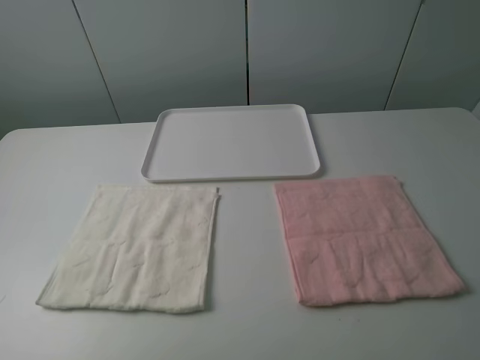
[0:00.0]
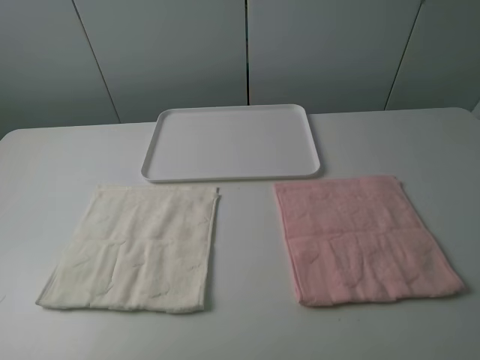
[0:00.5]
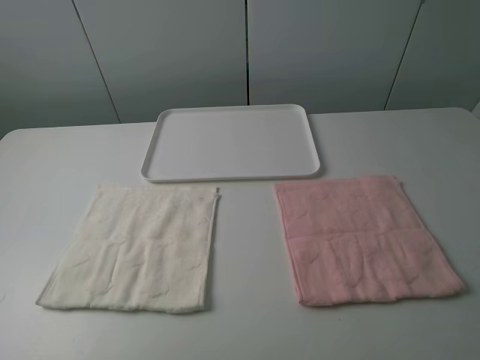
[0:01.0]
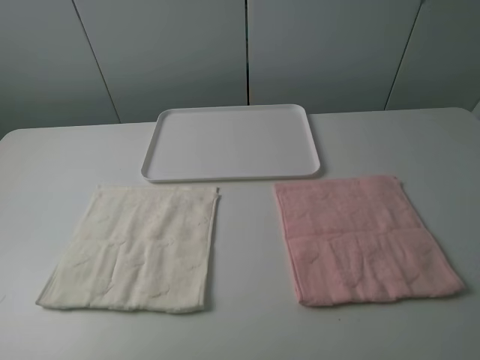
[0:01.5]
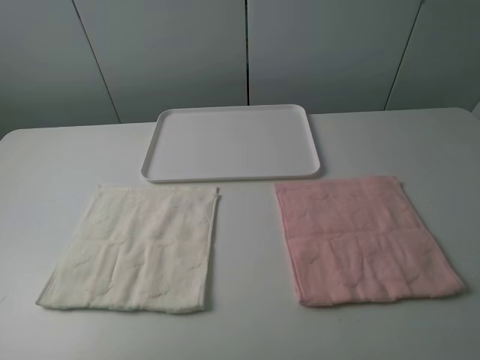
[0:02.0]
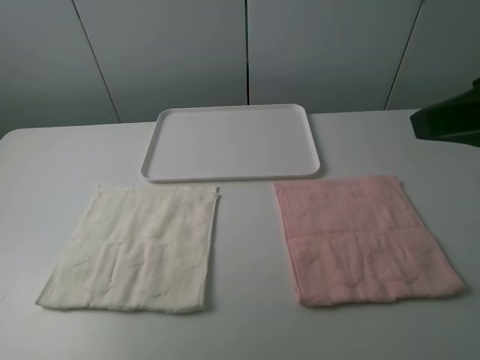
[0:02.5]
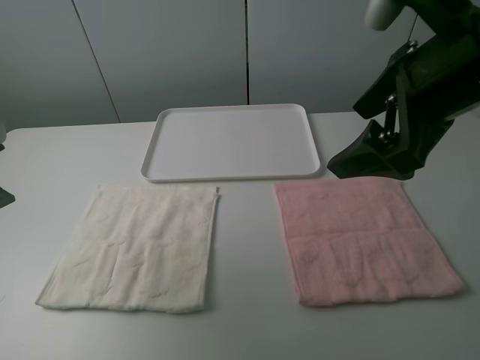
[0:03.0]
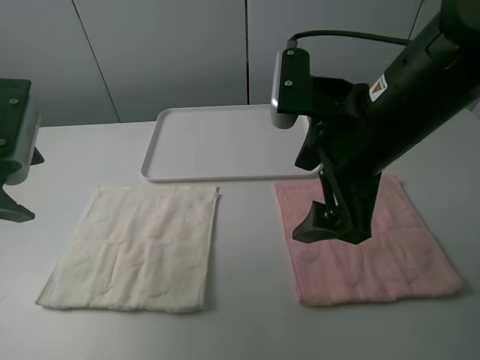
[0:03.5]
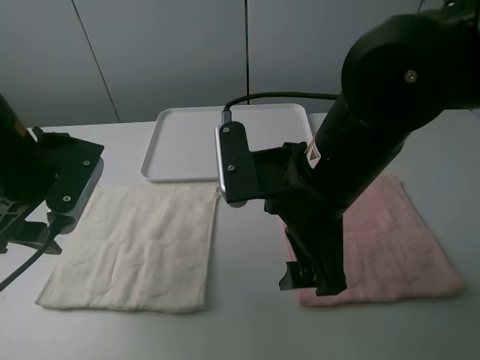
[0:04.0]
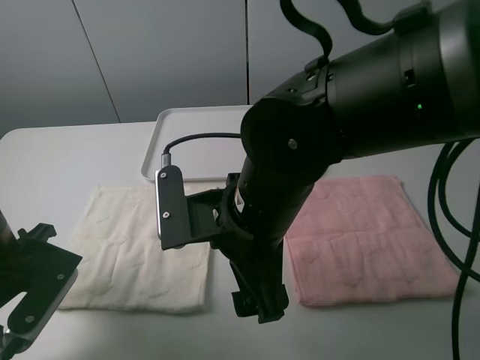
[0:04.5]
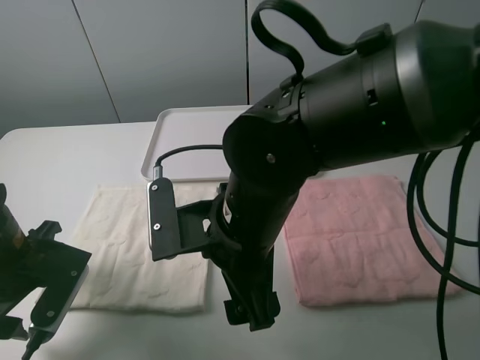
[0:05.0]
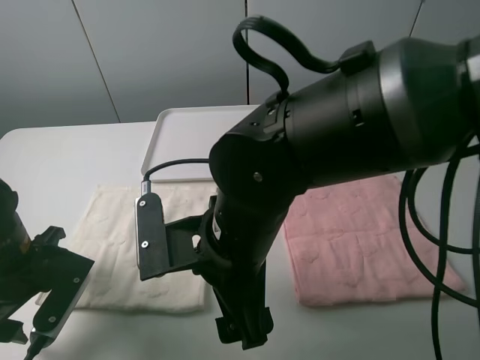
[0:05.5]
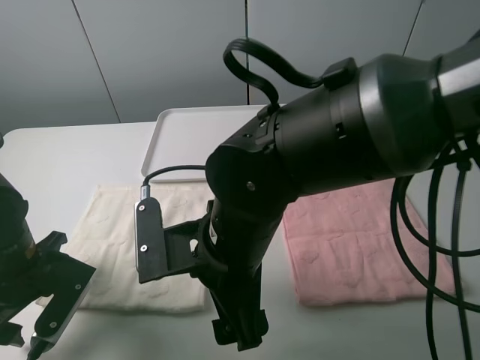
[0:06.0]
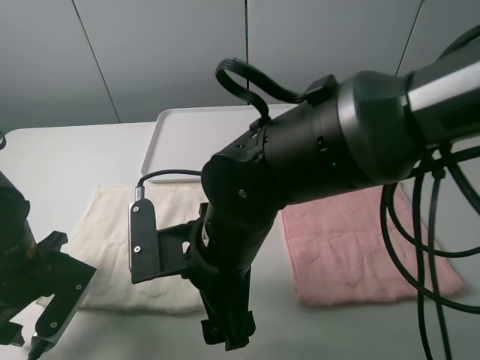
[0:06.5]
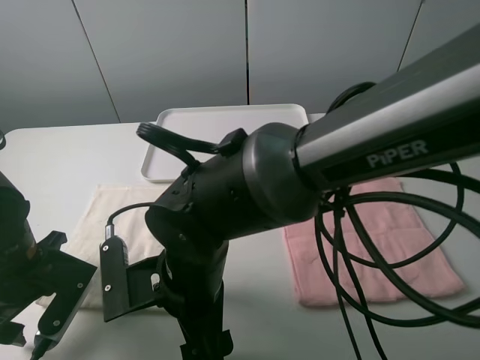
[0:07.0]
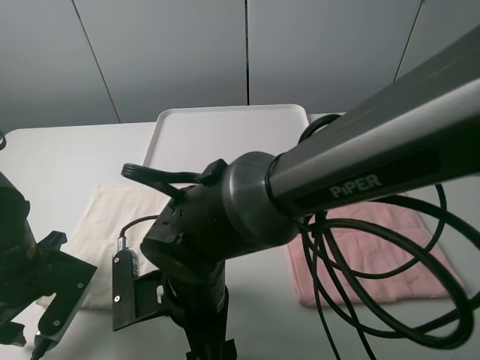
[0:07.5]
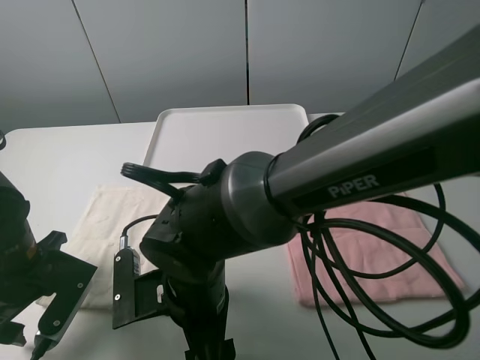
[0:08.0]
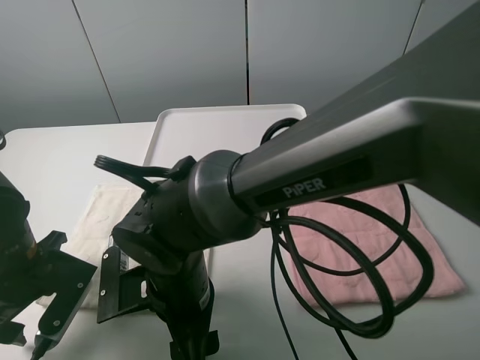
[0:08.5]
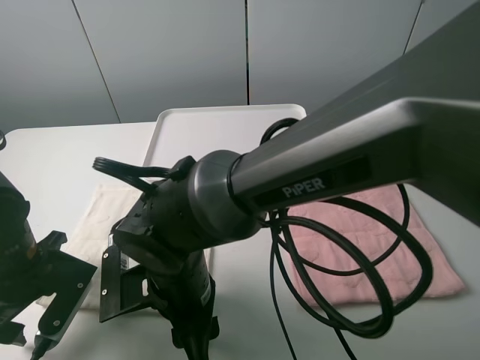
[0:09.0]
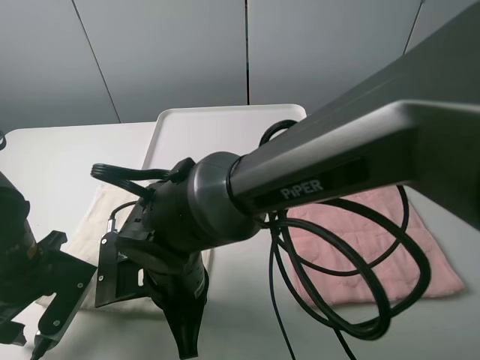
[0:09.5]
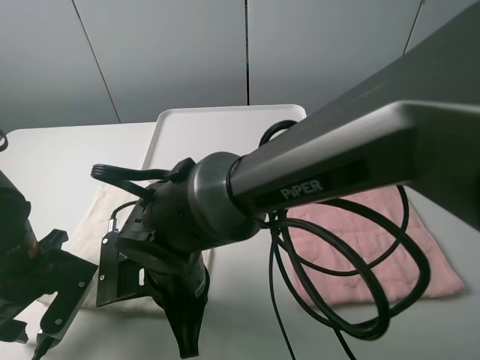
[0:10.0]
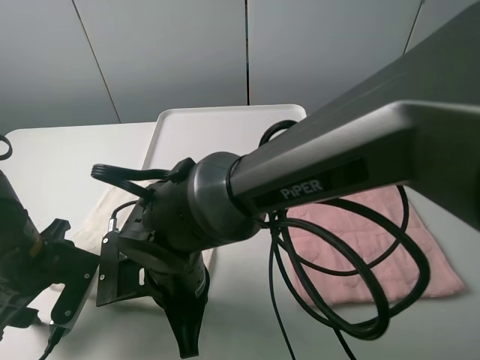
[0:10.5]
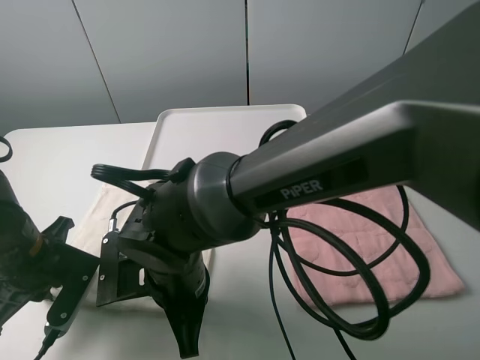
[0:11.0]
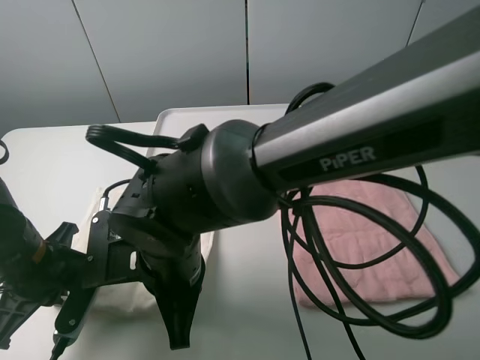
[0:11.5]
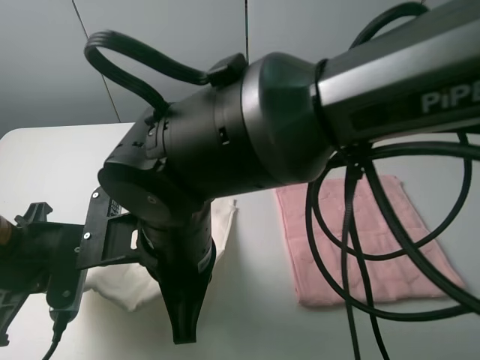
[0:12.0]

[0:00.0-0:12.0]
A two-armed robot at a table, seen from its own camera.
Task of the whole recording: fold one of the towels by two grippers and place it on the tray,then fold another towel by two grippers and place it on the folded towel.
Step, 0:00.0 to 0:11.0: Grasp the white towel with the left gripper.
0:02.0 to 0:04.0: The left gripper moves forward, approximately 20 cm. The right gripper travels to the left, forward and downward by approximately 30 cm.
0:04.0 to 0:06.0: The left gripper goes roughly 15 cm downward and backward. The right gripper is displaced to the left and downward by some 10 cm.
0:06.0 to 0:08.0: The right gripper is displaced downward by some 5 cm.
0:08.0 to 0:10.0: The right gripper closes its fingers.
0:10.0 to 0:12.0: The grippers both shift upward by some 5 cm. The left gripper closes up.

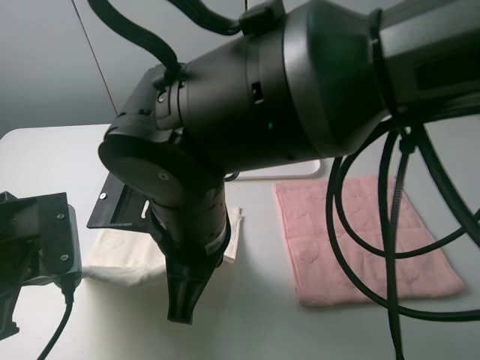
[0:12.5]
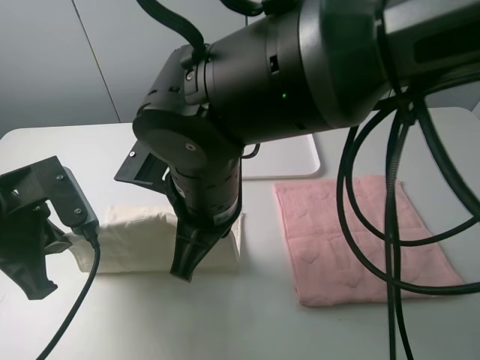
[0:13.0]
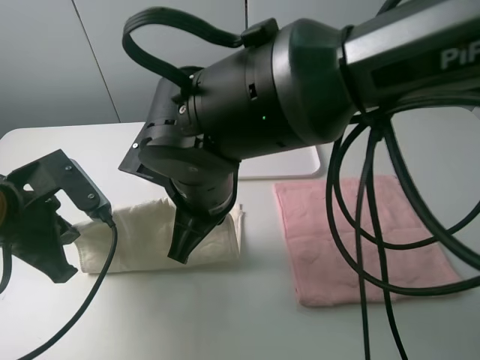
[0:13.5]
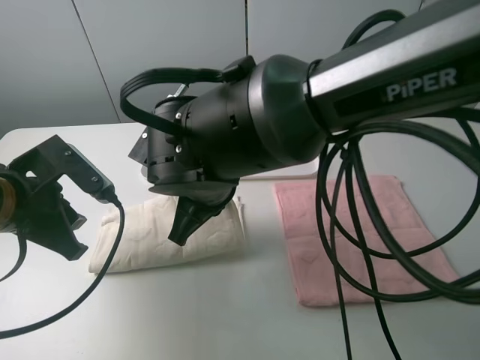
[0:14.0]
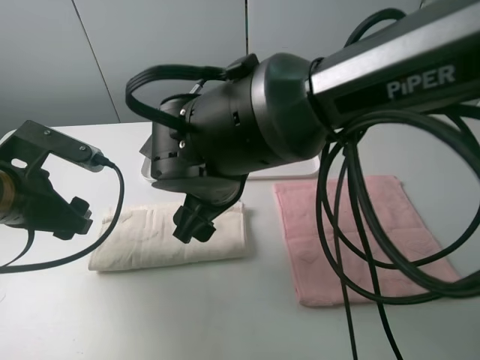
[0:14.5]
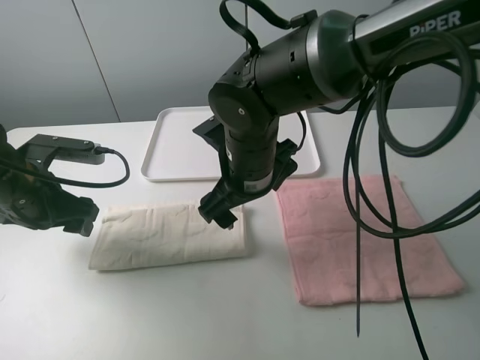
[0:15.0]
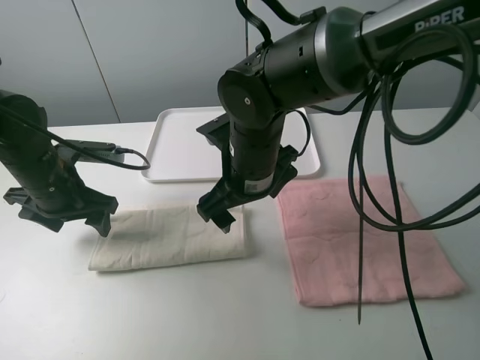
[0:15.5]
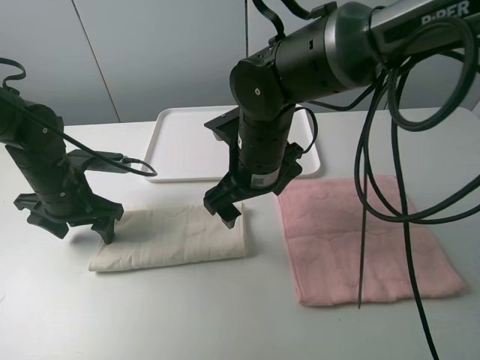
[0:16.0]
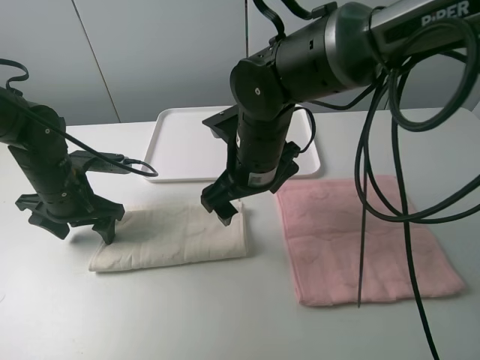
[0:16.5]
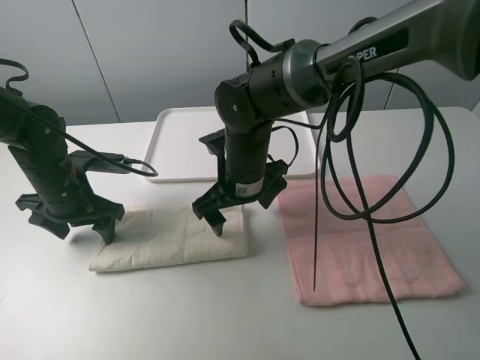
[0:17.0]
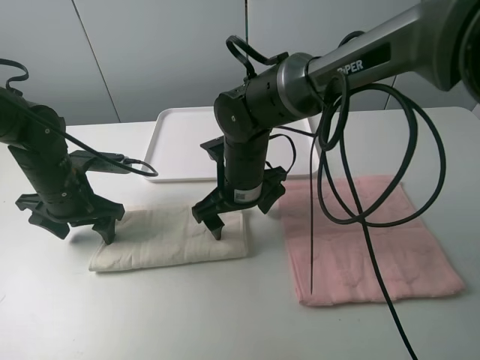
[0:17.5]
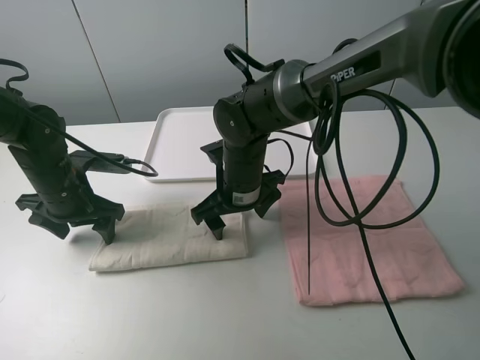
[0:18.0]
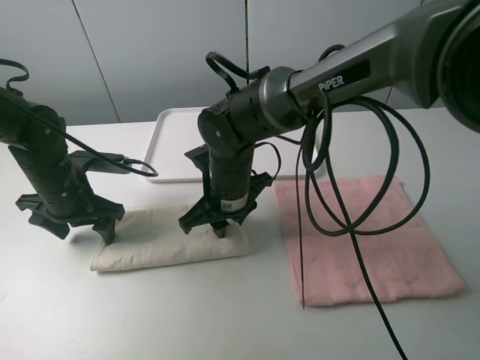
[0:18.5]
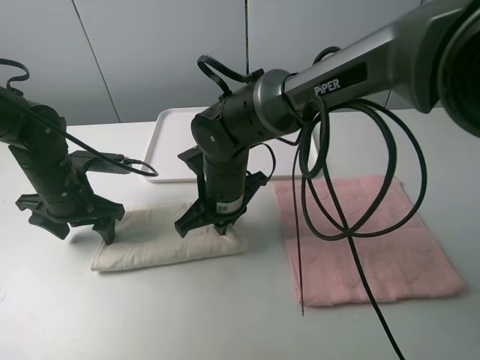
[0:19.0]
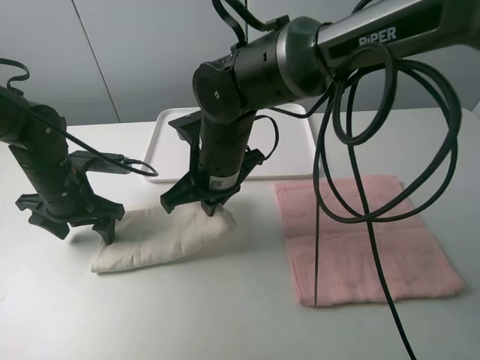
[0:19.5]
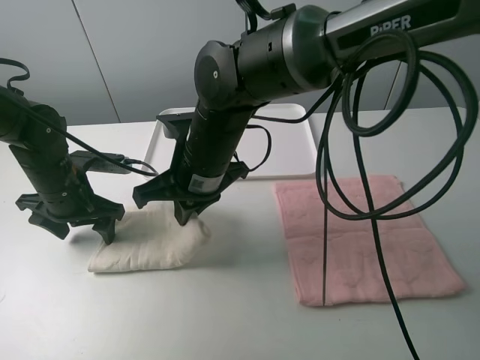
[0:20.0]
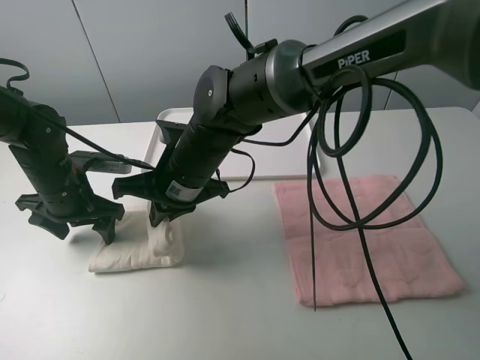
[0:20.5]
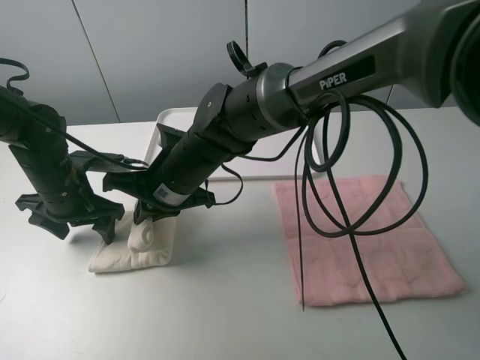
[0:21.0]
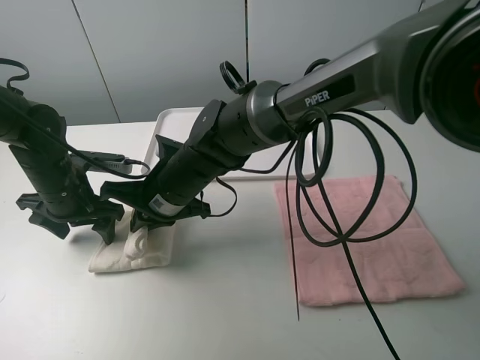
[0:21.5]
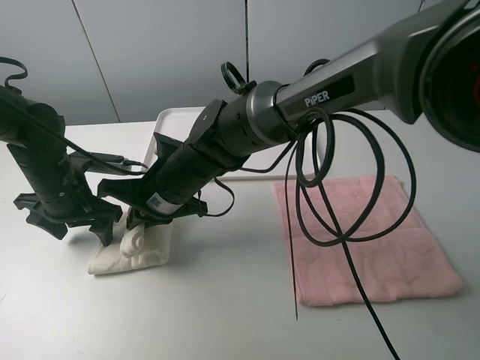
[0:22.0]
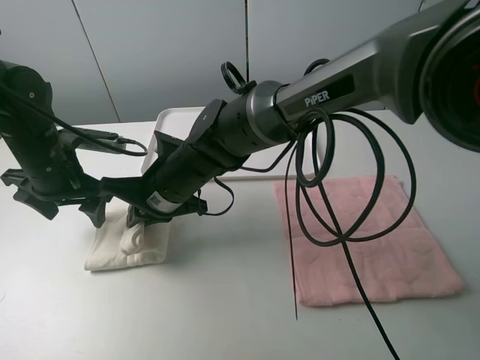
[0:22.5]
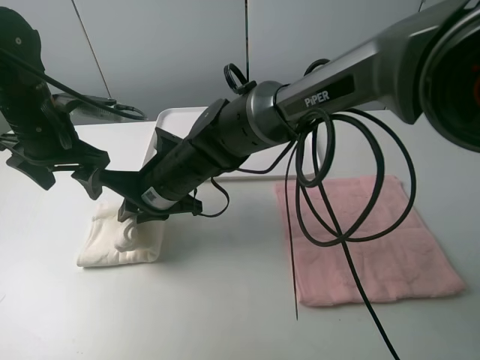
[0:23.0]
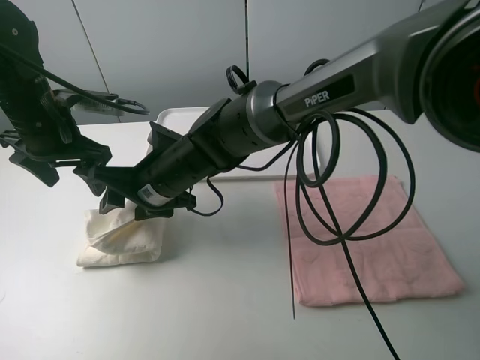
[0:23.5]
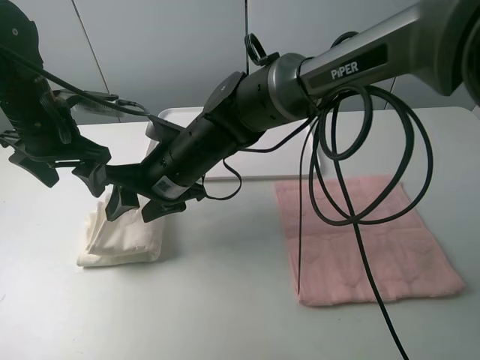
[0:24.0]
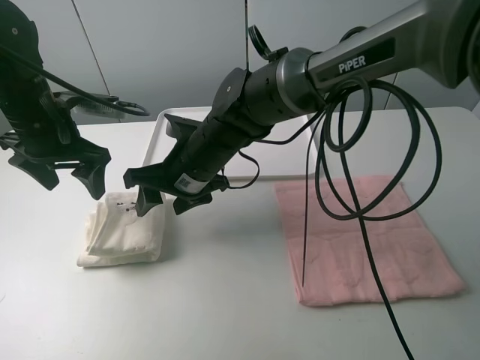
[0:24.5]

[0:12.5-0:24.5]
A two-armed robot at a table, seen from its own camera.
Task of the whole recording: fold one of the towels by two grippers and place it on the tray,then fold another towel by two grippers and place it on the folded towel.
Step, 0:14.5 to 0:16.0: Press the white towel with the left gripper.
Step, 0:16.5 to 0:18.5: Grasp the white towel with the right gripper.
Step, 0:19.0 to 0:24.0: Fold the white towel from right to left with right gripper.
0:12.5 to 0:14.5: Both grippers move forward, some 5 cm. The right gripper opens up; the left gripper opens up.
0:14.5 to 0:16.5: The left gripper travels forward and downward by roughly 10 cm; the right gripper moves forward, approximately 5 cm.
0:16.5 to 0:18.5: The right gripper goes roughly 5 cm downward, and closes its fingers.
0:18.5 to 0:20.5: The right gripper moves approximately 5 cm.
0:20.5 to 0:22.5: The left gripper heads upward, covering roughly 5 cm.
0:22.5 to 0:24.5: The left gripper ends up approximately 5 cm from where it was. The right gripper opens.

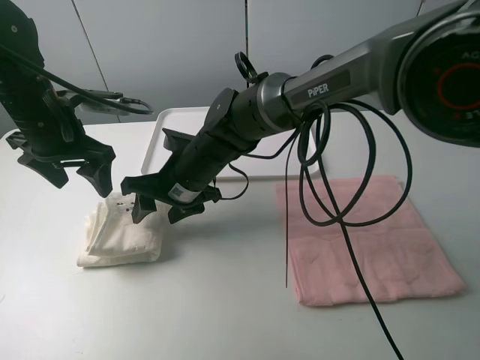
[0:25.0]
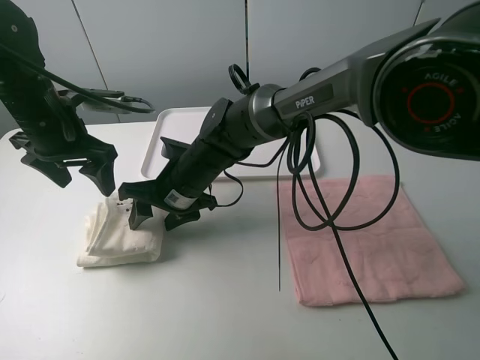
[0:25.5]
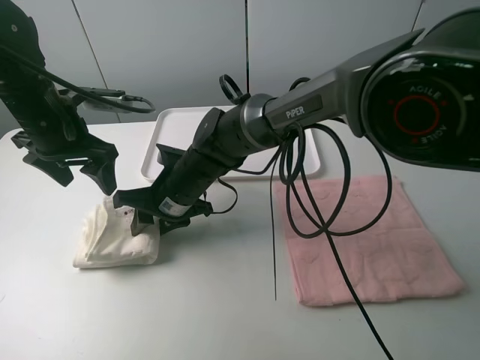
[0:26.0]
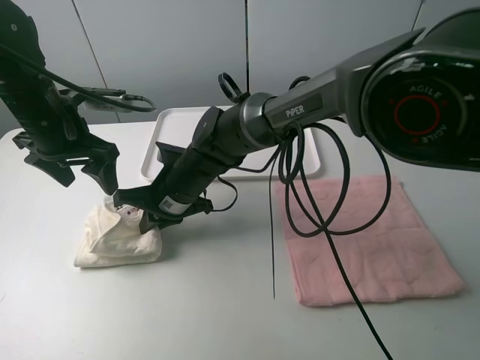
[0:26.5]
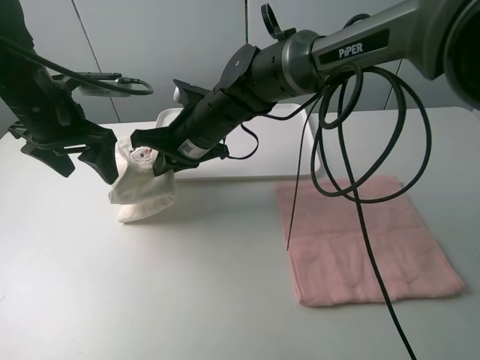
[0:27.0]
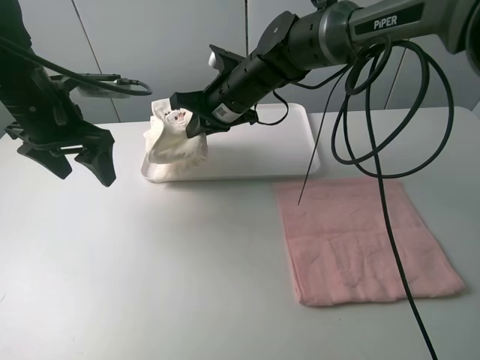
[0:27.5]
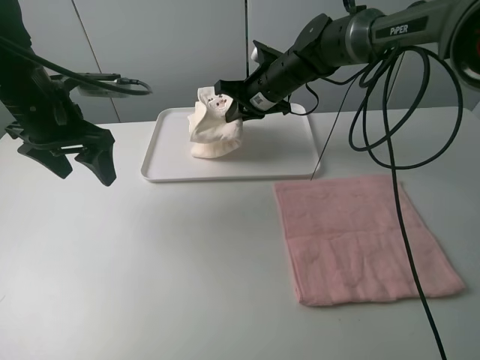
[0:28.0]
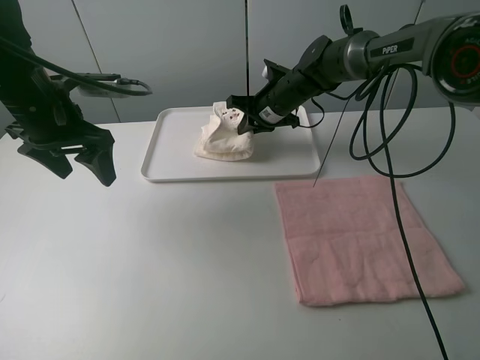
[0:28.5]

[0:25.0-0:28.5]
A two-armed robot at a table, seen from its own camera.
Task of the whole recording: fold one of the towels by two grippers and place it on the tray,then fold another towel by two grippers and place it on the folded towel.
Step, 0:25.0 to 0:26.0: Grasp the white towel with the right gripper.
0:25.0 to 0:27.0: The right gripper changes place by roughly 5 cm, and closes up.
0:27.0 to 0:28.5: The right gripper travels forward and to the right by some 15 cm.
